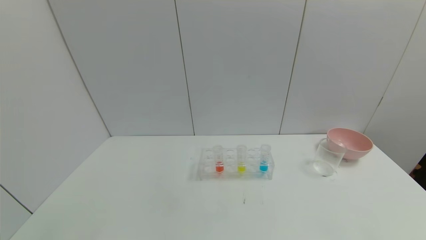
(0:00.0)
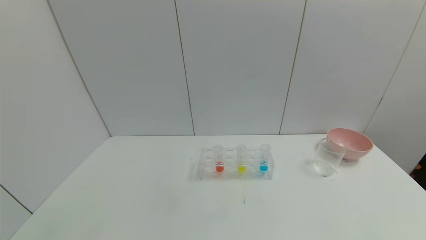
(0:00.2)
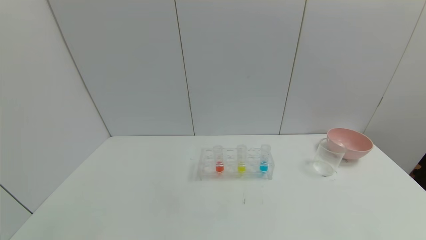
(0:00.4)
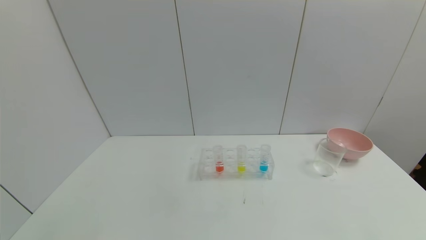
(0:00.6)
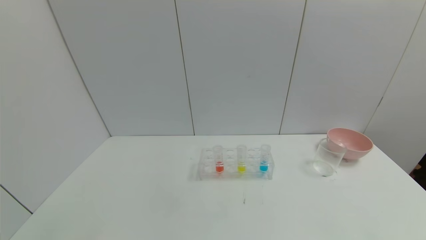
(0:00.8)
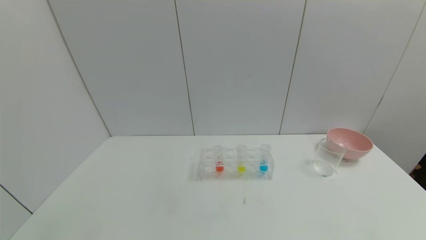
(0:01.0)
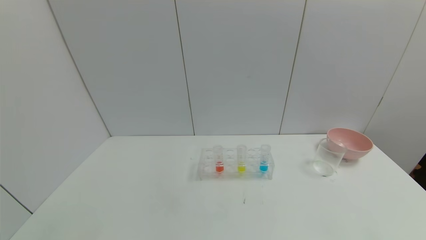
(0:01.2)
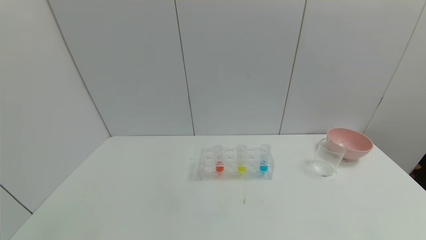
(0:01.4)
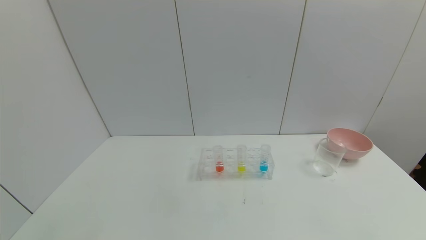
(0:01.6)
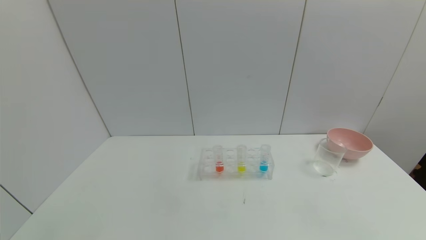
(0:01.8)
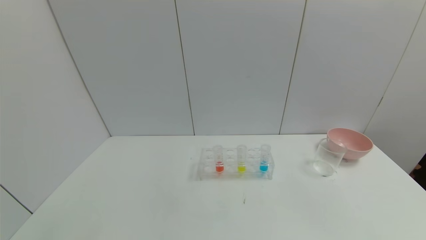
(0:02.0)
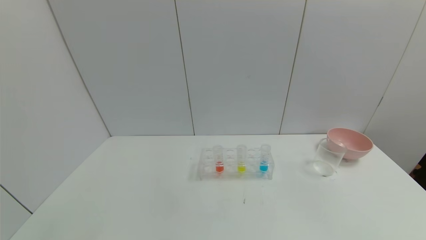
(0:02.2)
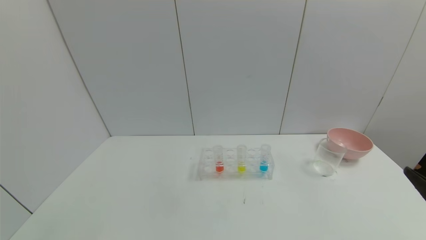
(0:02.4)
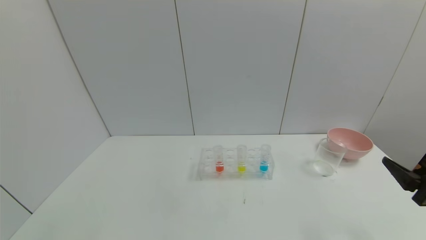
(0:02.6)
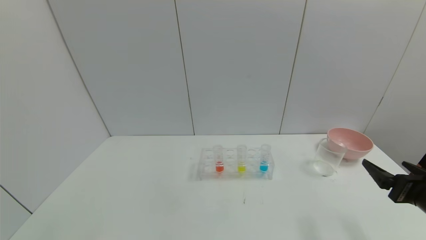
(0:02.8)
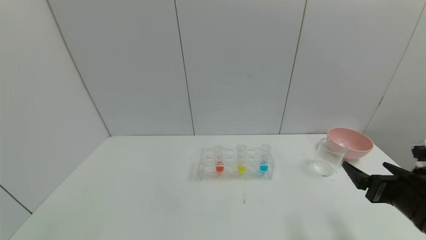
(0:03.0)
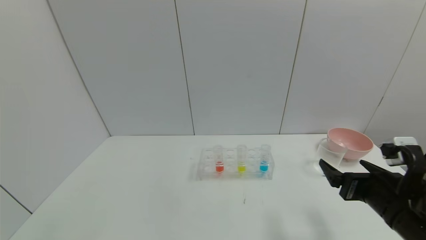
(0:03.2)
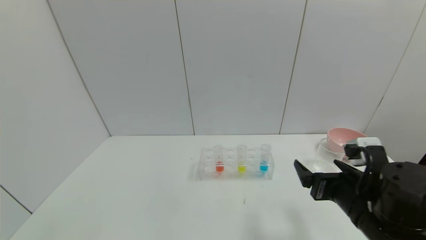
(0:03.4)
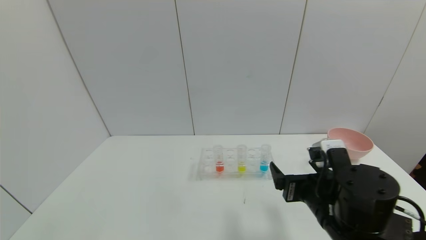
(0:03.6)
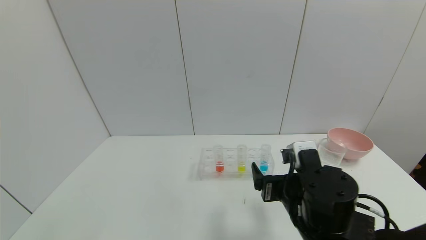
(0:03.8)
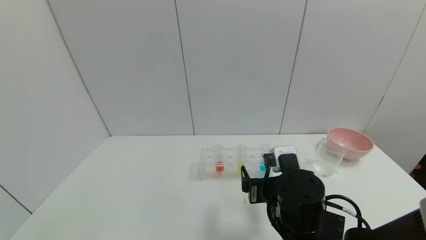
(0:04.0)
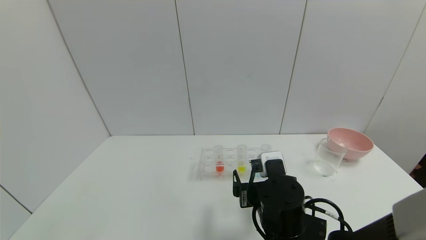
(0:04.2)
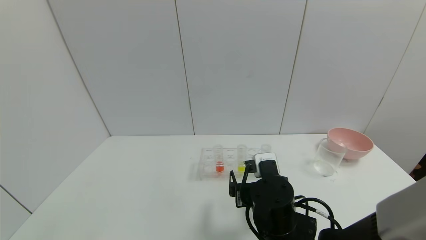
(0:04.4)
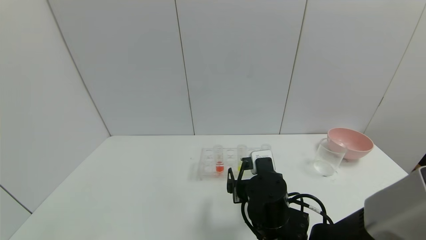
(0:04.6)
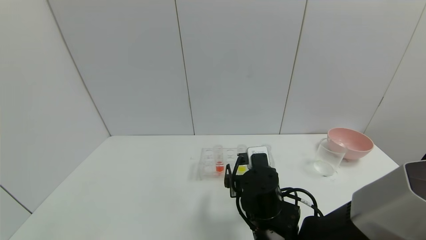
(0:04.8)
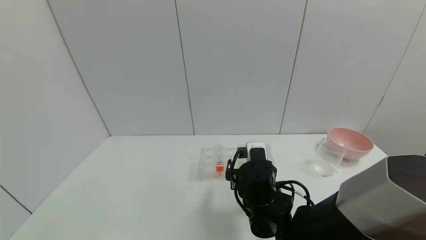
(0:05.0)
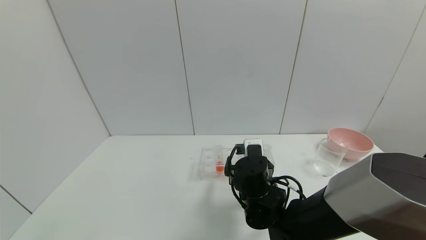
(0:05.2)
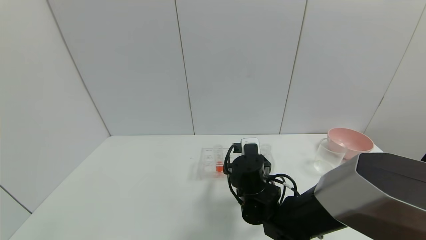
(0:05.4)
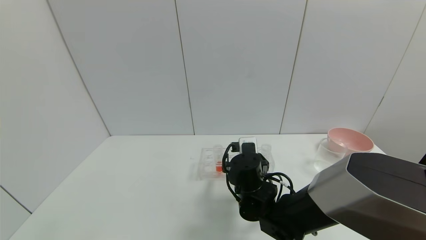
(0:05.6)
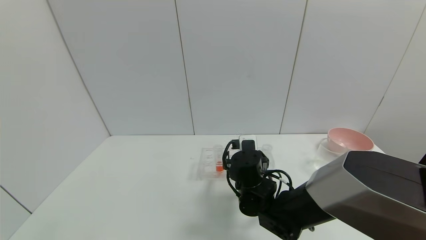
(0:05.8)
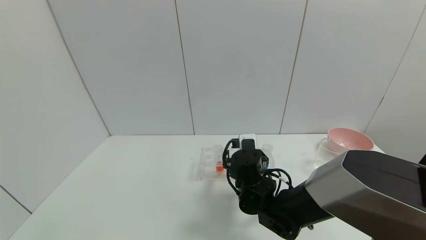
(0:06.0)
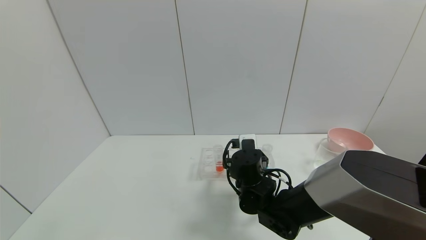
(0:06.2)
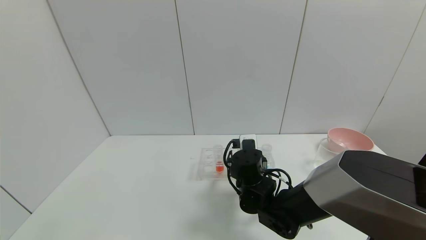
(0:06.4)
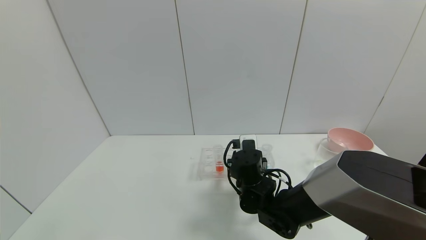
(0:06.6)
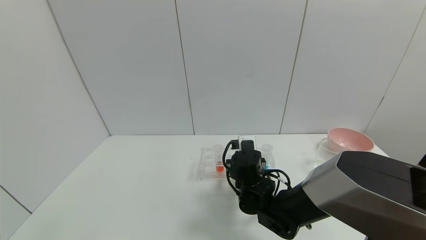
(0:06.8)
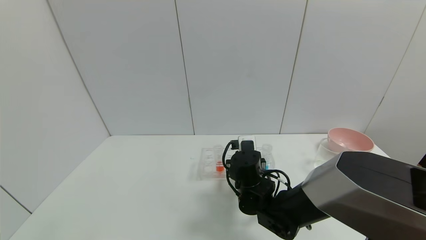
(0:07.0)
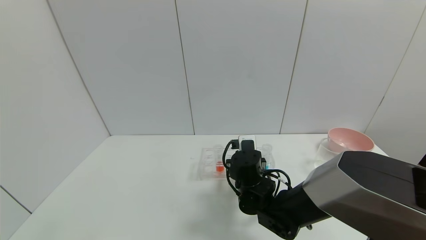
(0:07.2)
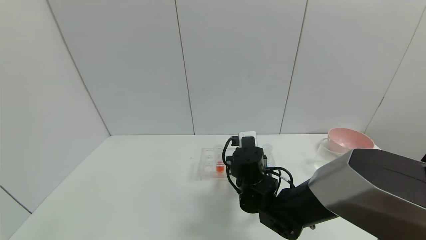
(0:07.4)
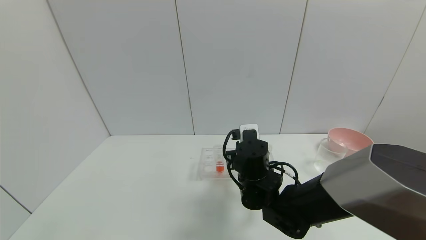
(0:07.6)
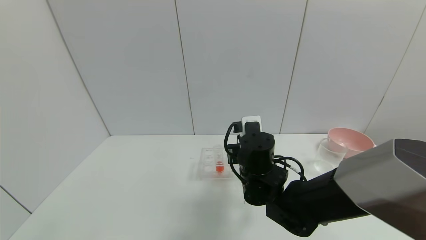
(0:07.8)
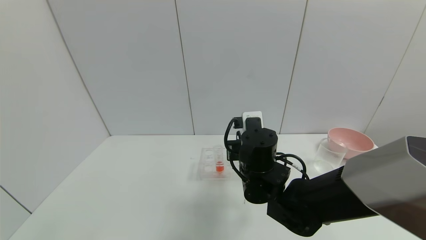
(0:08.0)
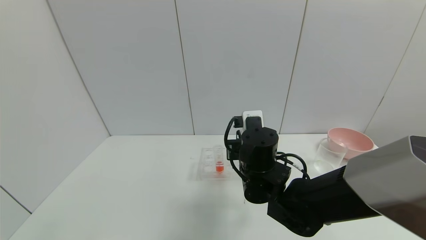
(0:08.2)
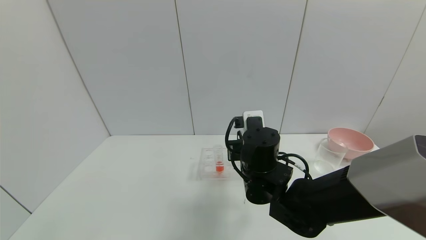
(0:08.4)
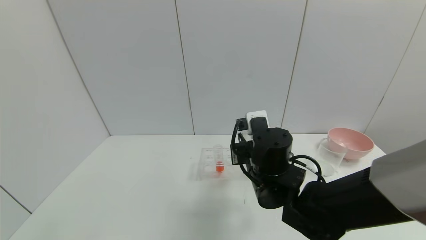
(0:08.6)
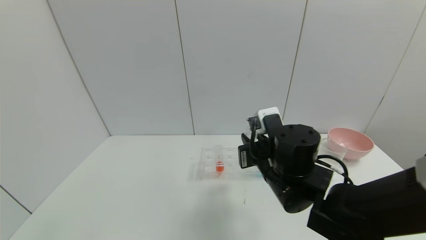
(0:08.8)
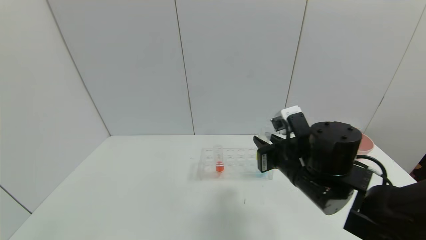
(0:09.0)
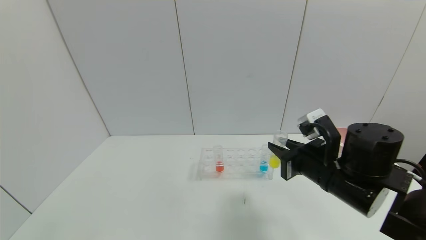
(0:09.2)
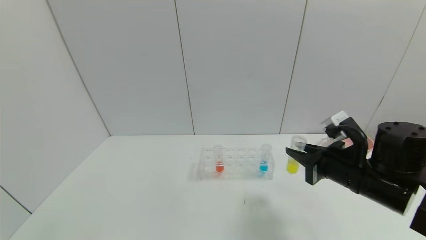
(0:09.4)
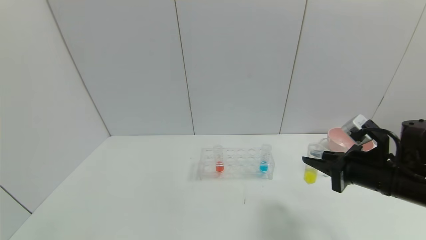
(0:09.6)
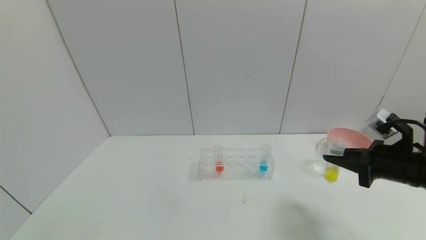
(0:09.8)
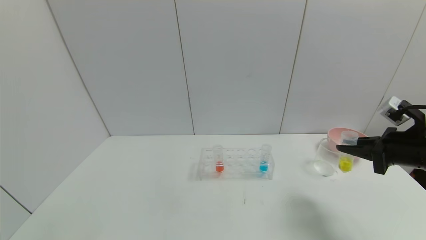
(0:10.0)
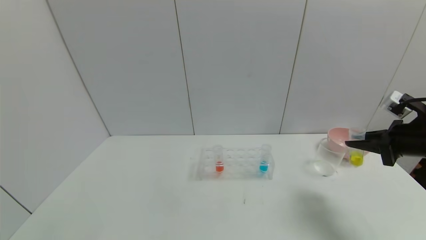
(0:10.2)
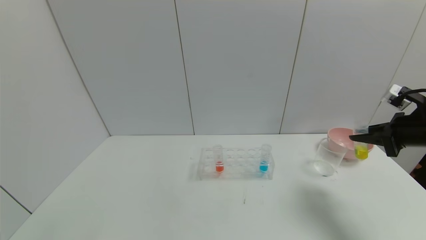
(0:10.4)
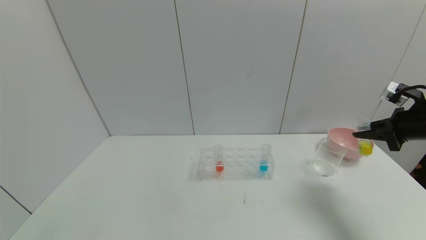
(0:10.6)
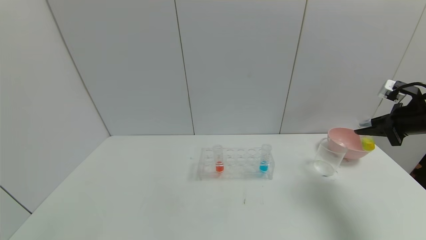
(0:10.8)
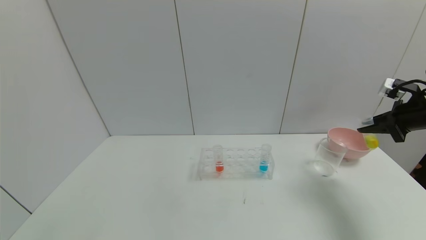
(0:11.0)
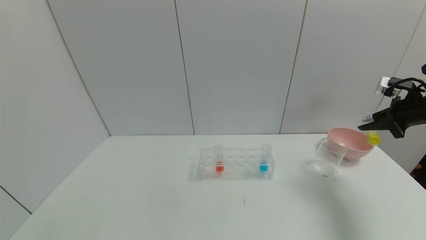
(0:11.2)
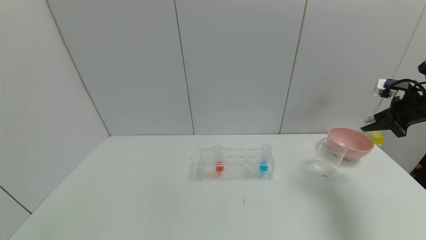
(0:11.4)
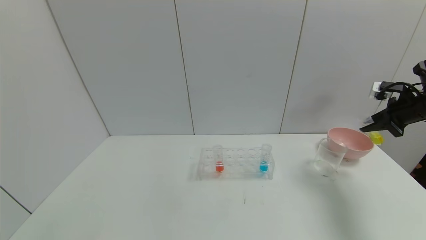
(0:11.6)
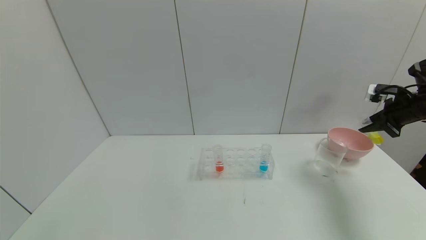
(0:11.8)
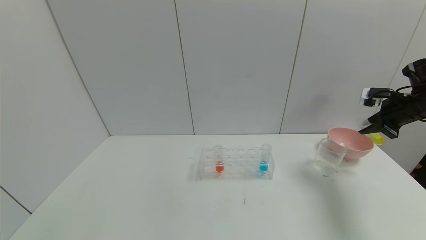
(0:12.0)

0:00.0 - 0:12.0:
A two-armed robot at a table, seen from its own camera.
Task of the whole recording: pick up the test tube with yellow pigment and the test tube with blue pigment by grippers and pour them into the beaker.
Step, 0:00.0 - 0:06.8: Grasp the yellow reagent with the right gripper.
0:01.6 - 0:03.0: The right gripper shifts some 20 cm forward.
0:03.0 - 0:04.4: The right gripper shifts approximately 25 cm to the left.
0:04.4 - 0:06.0: The right gripper travels forward by about 10 cm.
0:06.0 - 0:07.6: The right gripper closes its fingers.
0:07.6 - 0:09.0: The right gripper goes roughly 10 cm to the right, upward and backward.
0:09.0 - 0:10.4: The right gripper travels to the right by approximately 25 cm.
0:10.4 - 0:12.0: The right gripper is displaced forward by about 10 cm.

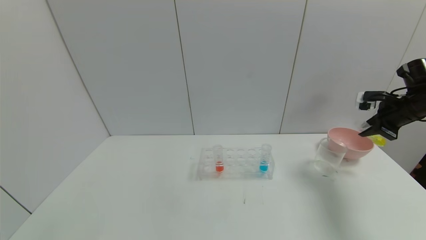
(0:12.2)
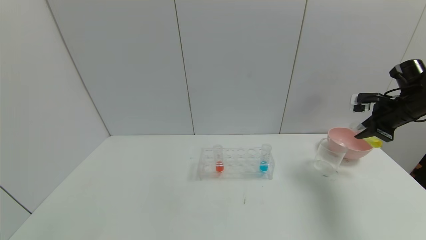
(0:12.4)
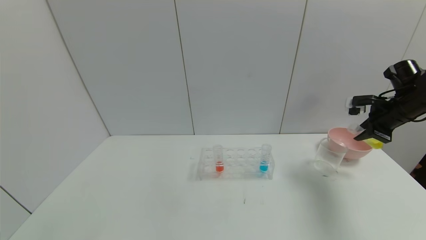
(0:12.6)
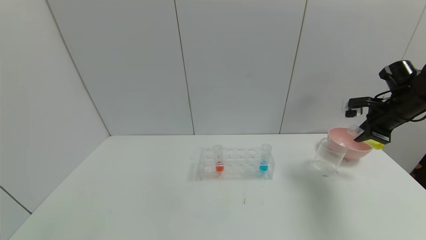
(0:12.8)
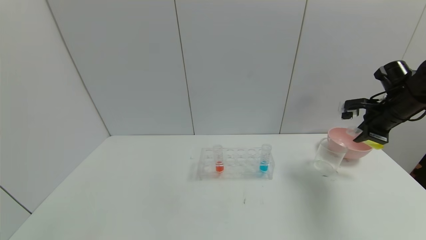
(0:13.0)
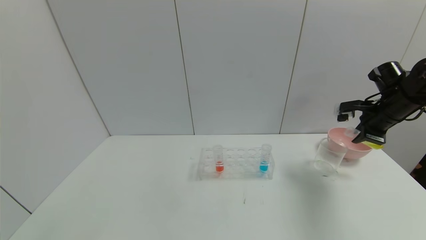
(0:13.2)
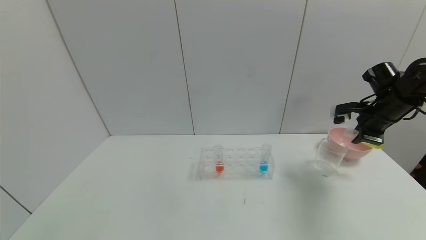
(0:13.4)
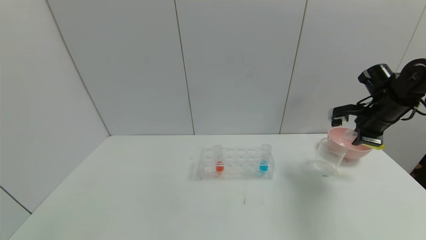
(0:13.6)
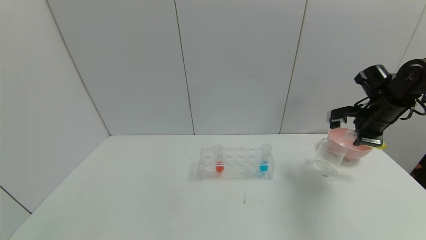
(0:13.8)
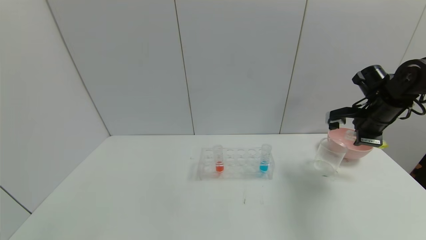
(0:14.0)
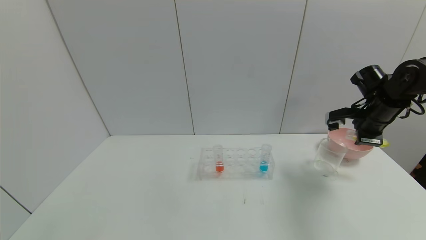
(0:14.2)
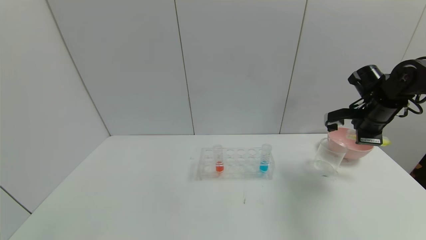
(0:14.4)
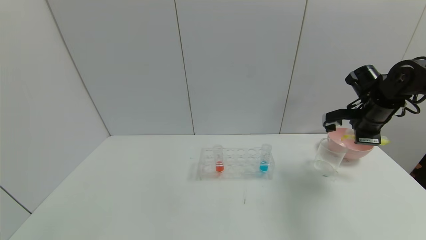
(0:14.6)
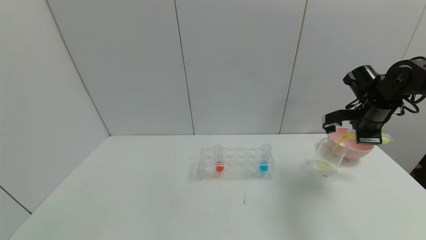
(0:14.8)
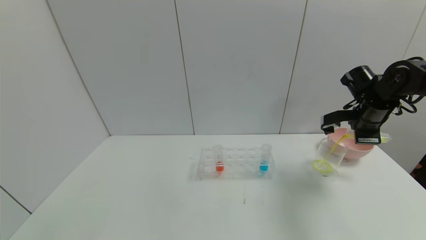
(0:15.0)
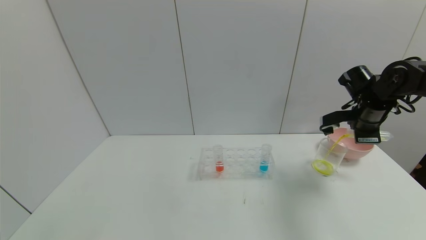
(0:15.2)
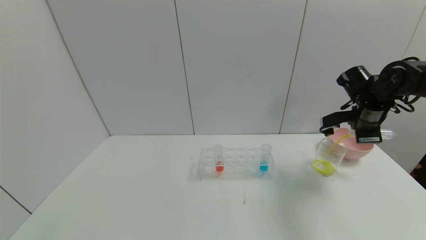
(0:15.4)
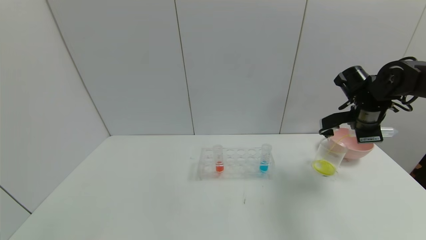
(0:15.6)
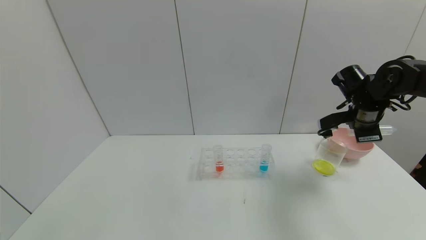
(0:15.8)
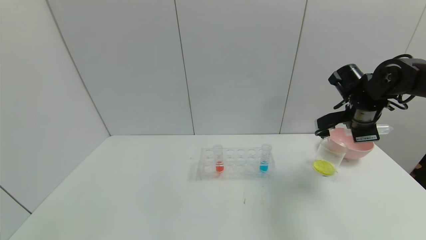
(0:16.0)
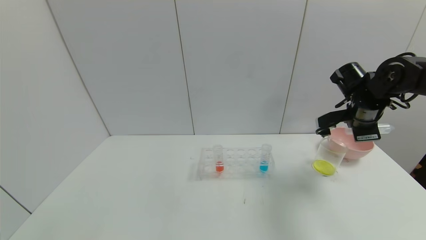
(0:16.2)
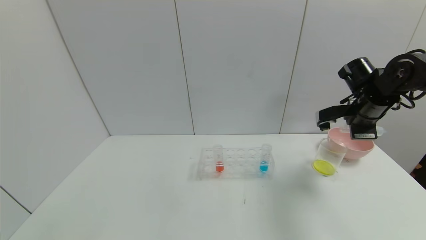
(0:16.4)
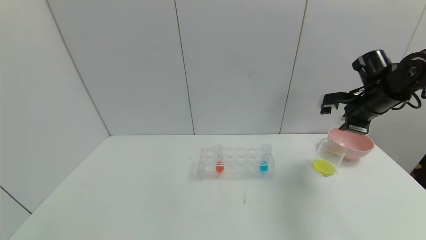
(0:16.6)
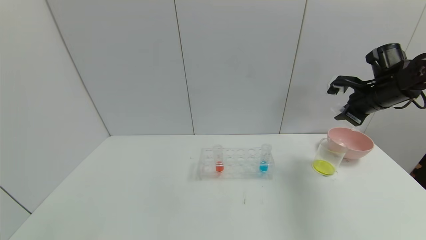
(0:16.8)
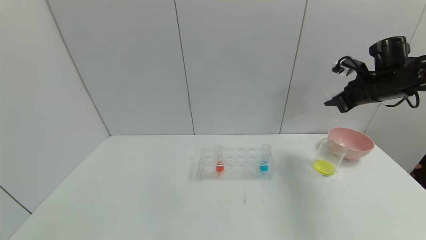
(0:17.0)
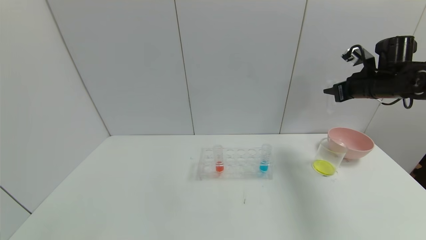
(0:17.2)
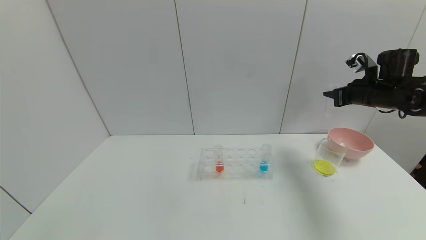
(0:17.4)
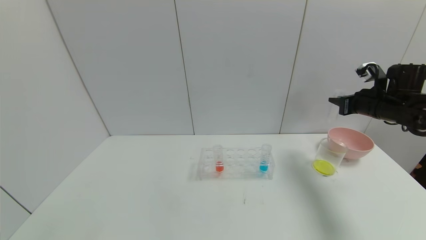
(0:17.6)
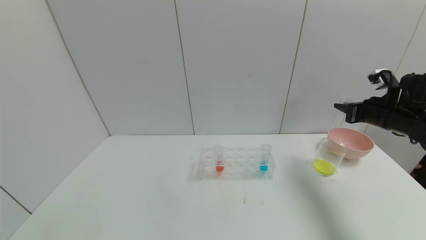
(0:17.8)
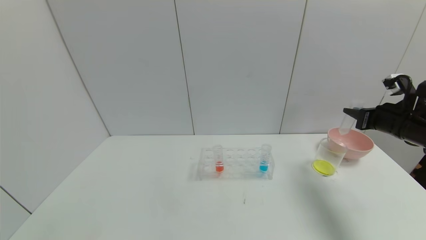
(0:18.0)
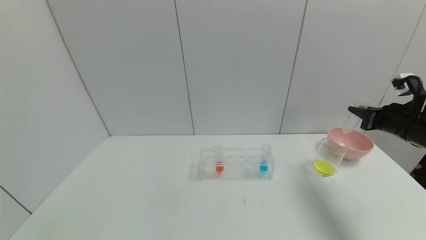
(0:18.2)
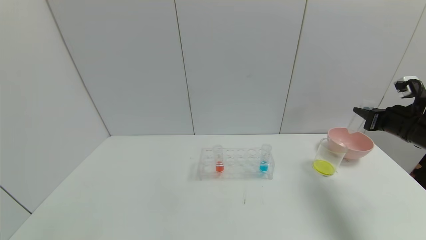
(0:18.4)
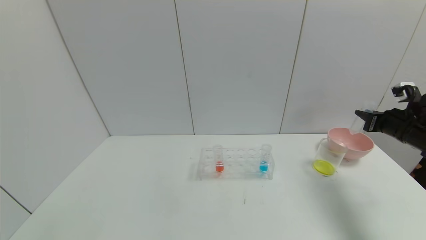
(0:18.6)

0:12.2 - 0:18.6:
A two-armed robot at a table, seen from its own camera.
Task of the whole recording: pick up the test tube with yellow pigment and the test tube with blue pigment by grippers and pour them into the beaker.
Step, 0:12.2 - 0:16.2: Pour the yellow reagent into the graduated cylinder with the right gripper.
0:12.2 - 0:13.8: The right gripper is displaced to the left by approximately 5 cm.
0:13.8 - 0:15.4: The grippers move only a little.
0:15.4 - 0:17.0: The right gripper shifts by approximately 5 cm.
0:17.0 - 0:18.6: The right gripper travels downward, to the right and backward by about 15 cm.
